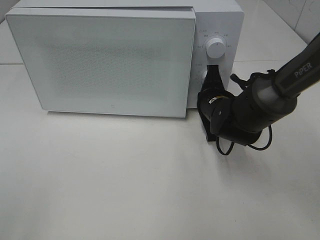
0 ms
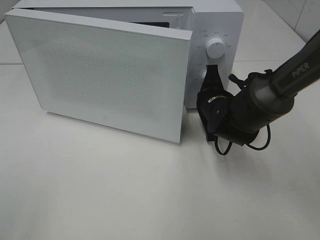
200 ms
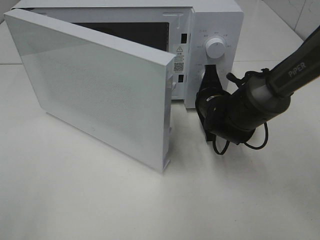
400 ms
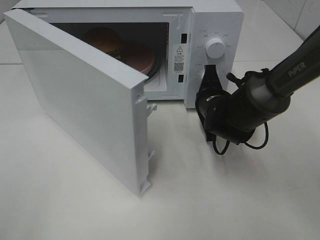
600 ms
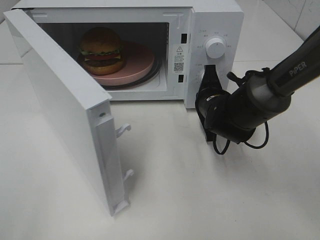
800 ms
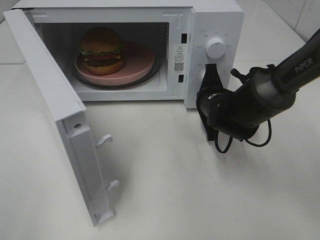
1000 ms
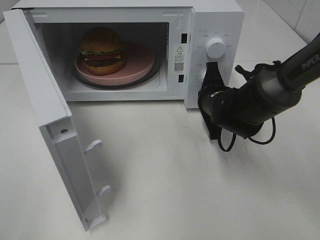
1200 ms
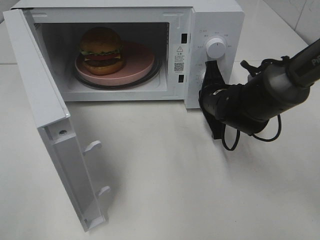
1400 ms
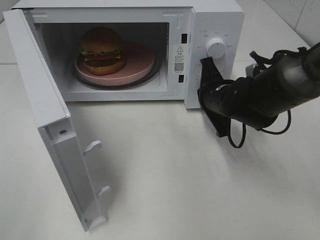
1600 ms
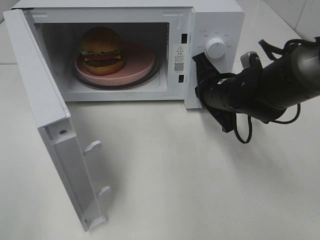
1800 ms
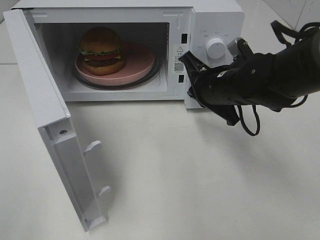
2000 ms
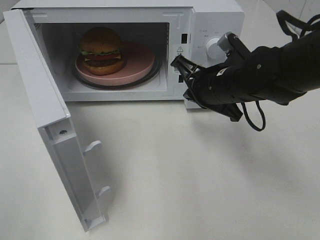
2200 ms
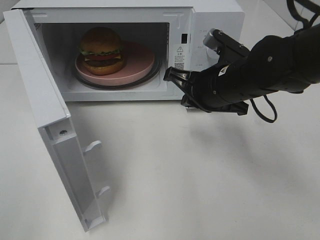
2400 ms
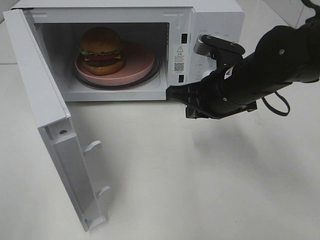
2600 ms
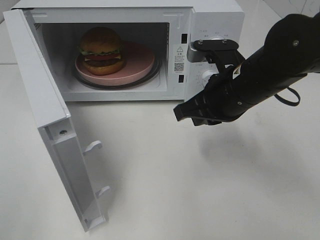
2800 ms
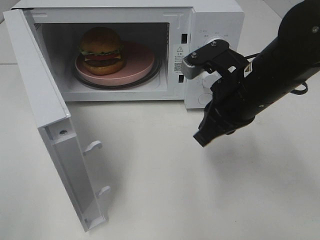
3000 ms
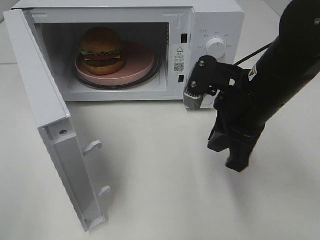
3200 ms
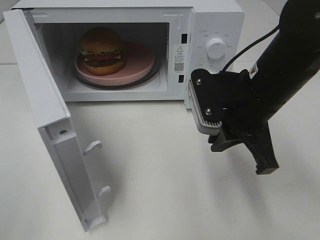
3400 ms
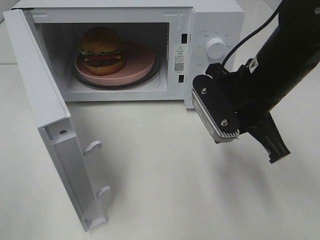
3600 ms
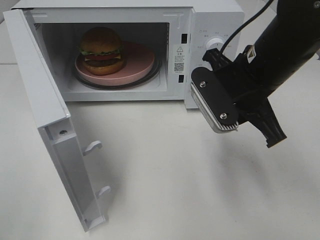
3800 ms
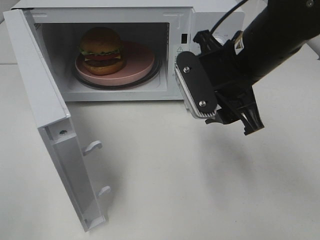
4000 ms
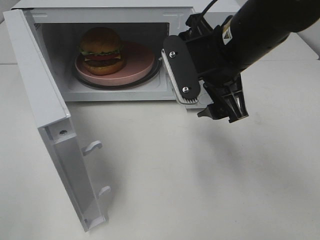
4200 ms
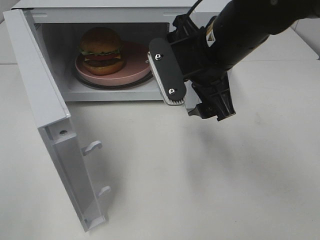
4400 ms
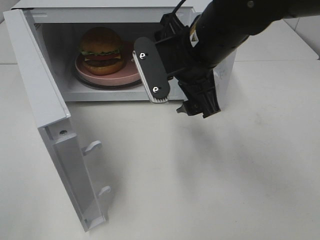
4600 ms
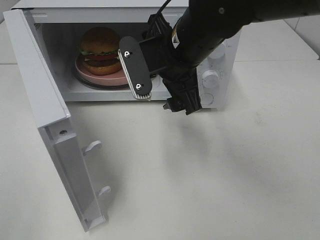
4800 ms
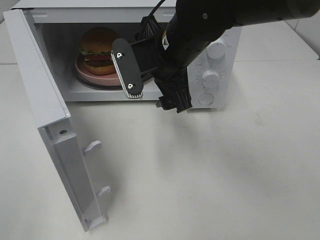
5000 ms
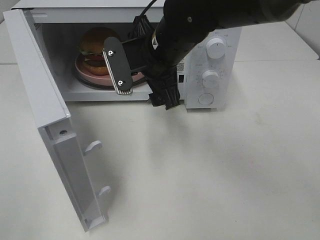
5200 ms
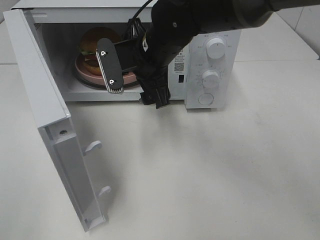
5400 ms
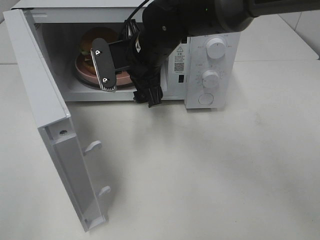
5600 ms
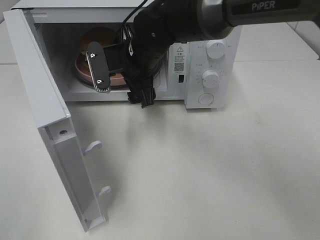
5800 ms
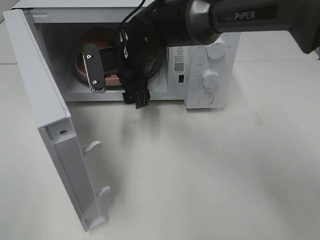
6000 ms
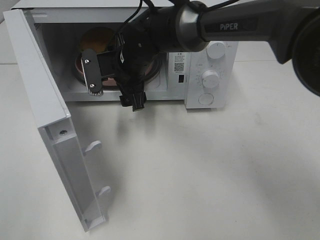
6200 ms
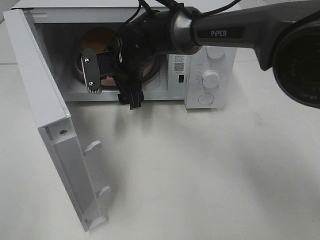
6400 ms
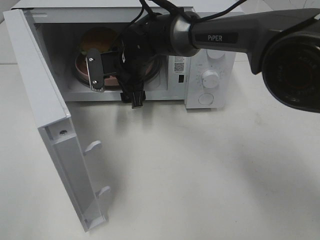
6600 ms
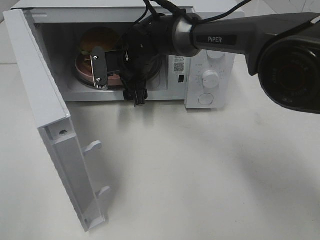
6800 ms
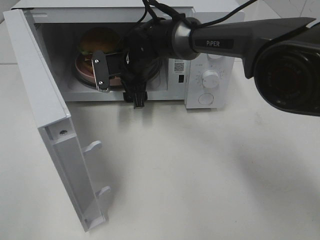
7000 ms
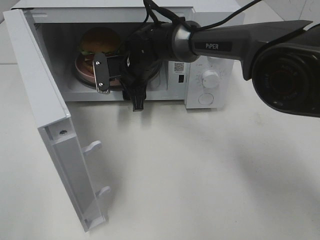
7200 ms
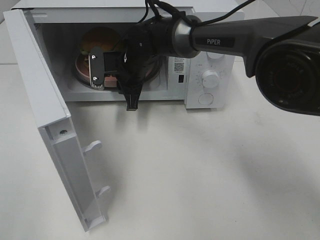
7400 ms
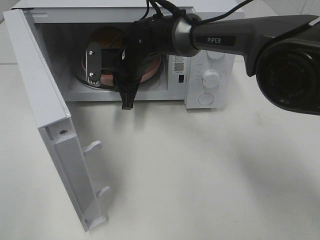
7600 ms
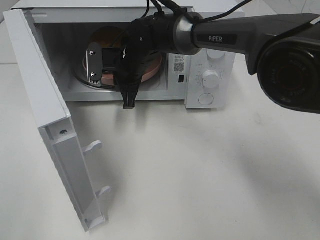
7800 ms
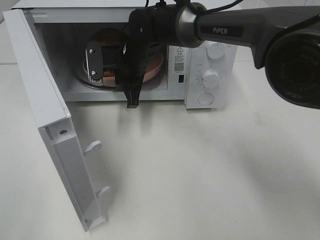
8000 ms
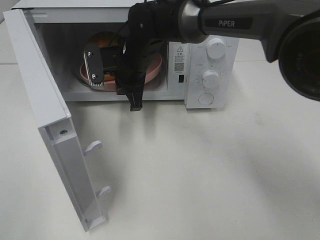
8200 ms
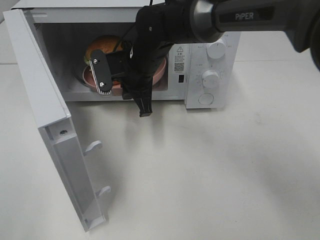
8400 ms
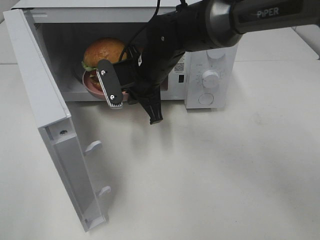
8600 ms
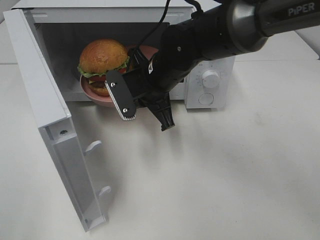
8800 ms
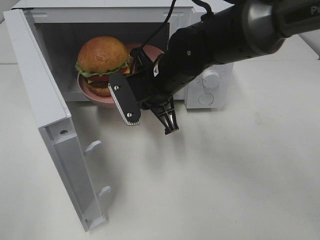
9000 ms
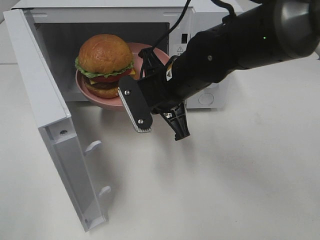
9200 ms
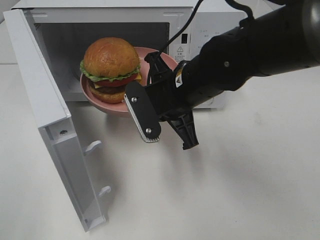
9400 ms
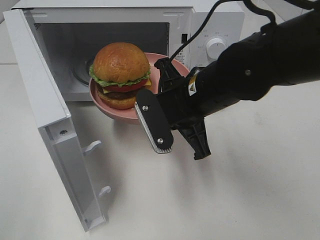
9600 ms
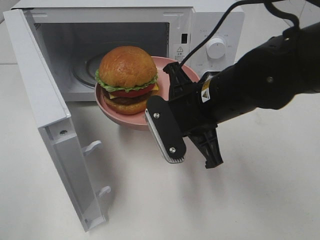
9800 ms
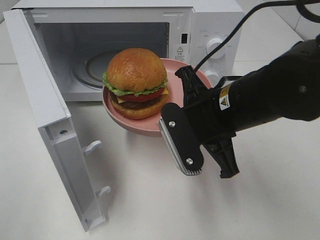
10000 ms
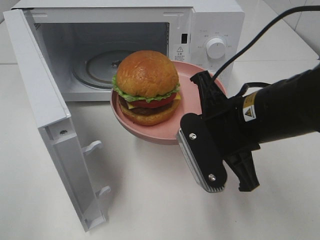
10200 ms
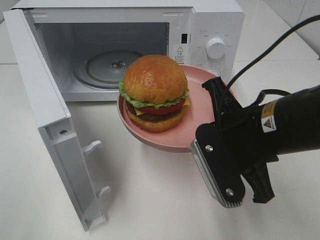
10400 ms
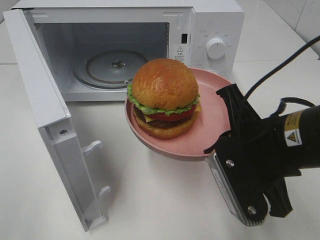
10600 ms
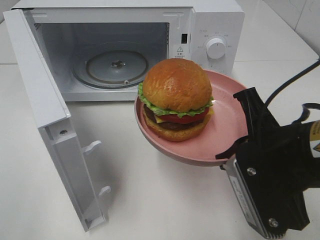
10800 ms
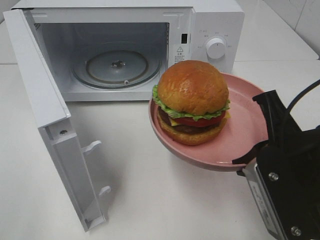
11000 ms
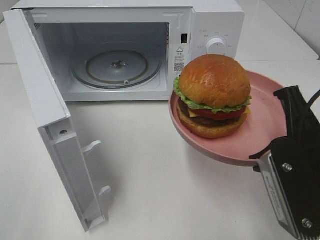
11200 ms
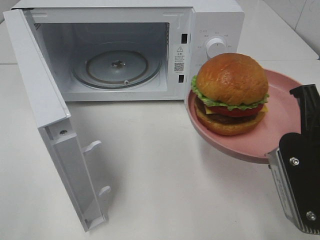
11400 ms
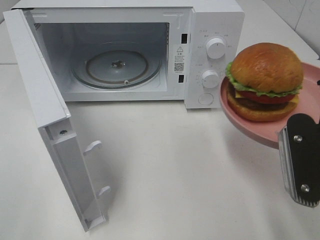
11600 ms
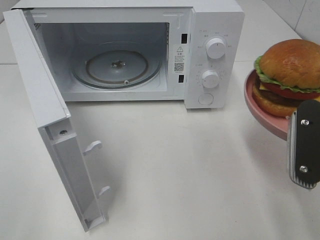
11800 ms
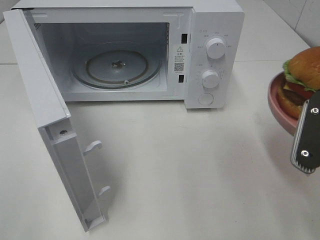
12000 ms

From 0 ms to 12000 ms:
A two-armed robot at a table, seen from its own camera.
Task of the whole recording: Heat the burger.
Step, from 1800 ms to 7600 ms: Right hand: grab the plate with the hamburger.
From 1600 ms to 3000 ms: The right gripper moves upward and backward, roughly 10 cm.
From 3000 ms to 4400 ms: The right gripper shifts approximately 5 cm to the left, and opens its fingers.
From 4400 ms to 6000 ms: The right gripper moves to the left, forward and downward, approximately 15 cm.
From 6000 ms to 7600 ms: The right gripper ends up some 5 cm from where it was, and closes up.
From 7600 ms to 9000 ms: The right gripper heads backward and to the right, covering some 10 cm.
From 9000 ms to 10400 ms: The right gripper shifts about 20 cm backward and to the right.
From 10400 ms to 12000 ms: The right gripper moves to the right, roughly 10 cm.

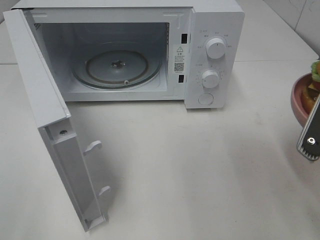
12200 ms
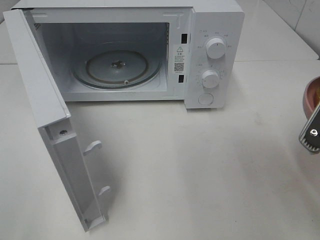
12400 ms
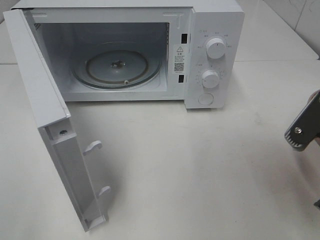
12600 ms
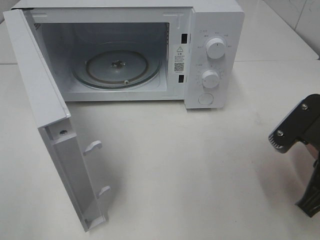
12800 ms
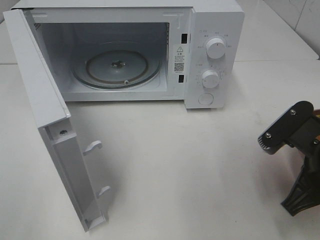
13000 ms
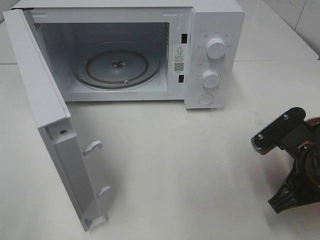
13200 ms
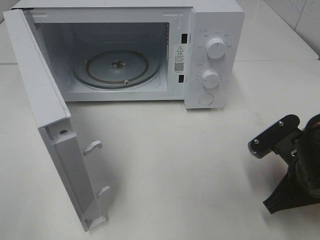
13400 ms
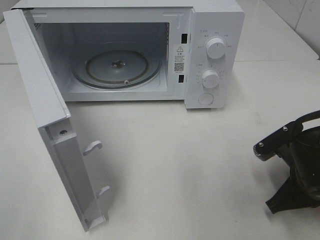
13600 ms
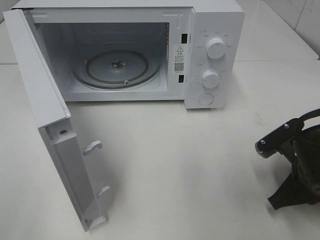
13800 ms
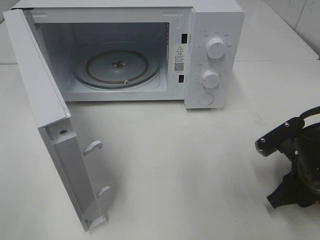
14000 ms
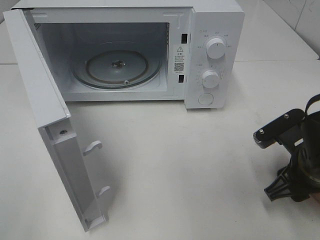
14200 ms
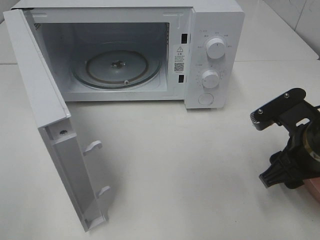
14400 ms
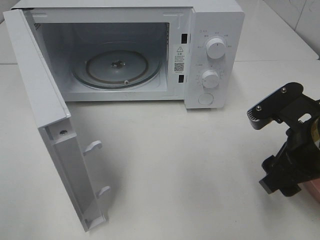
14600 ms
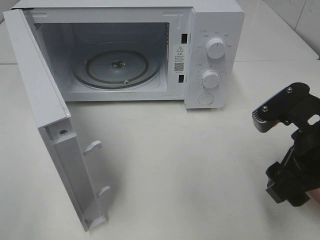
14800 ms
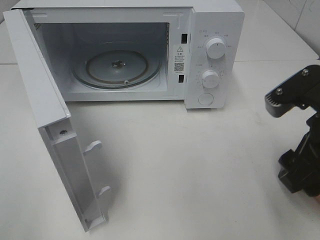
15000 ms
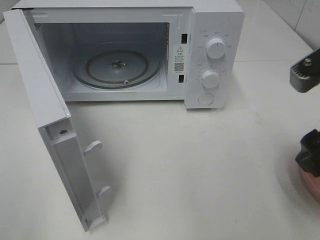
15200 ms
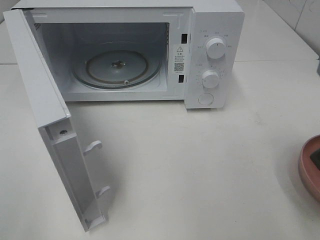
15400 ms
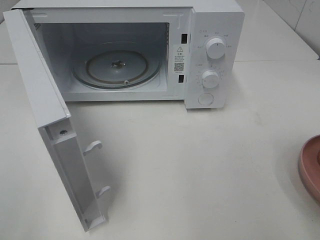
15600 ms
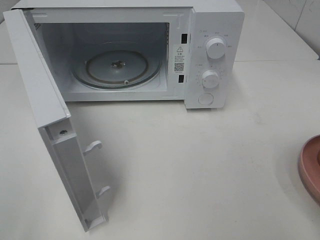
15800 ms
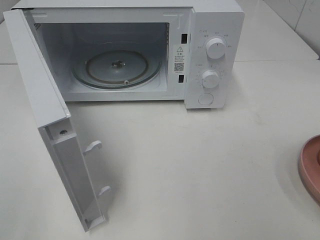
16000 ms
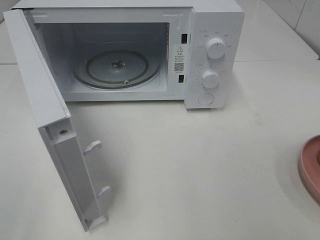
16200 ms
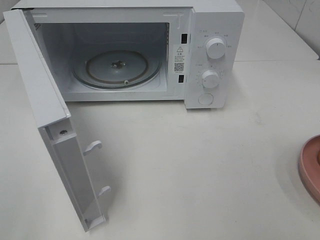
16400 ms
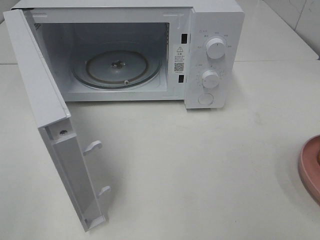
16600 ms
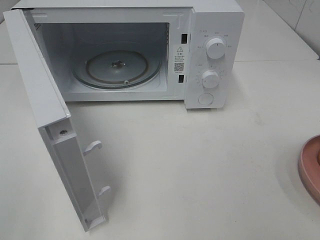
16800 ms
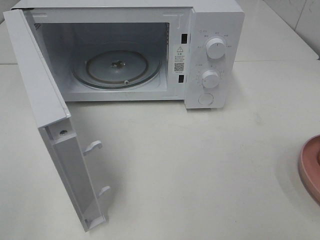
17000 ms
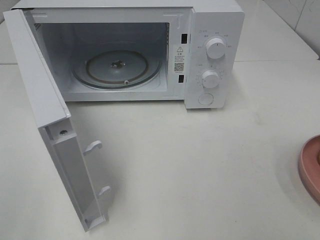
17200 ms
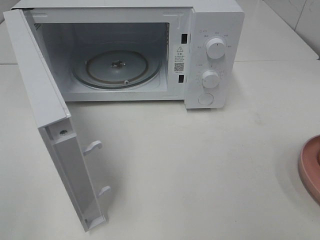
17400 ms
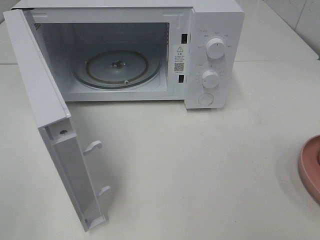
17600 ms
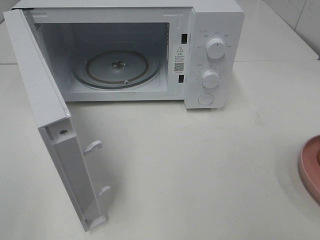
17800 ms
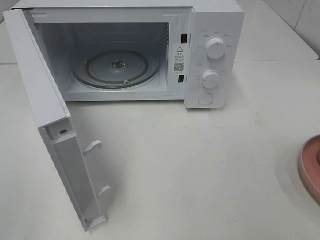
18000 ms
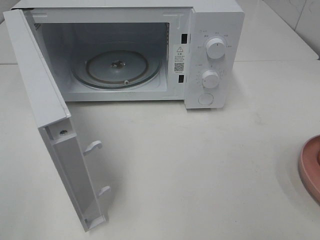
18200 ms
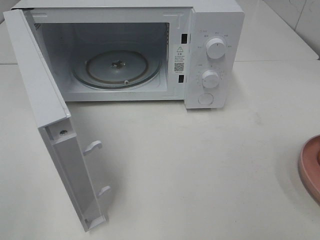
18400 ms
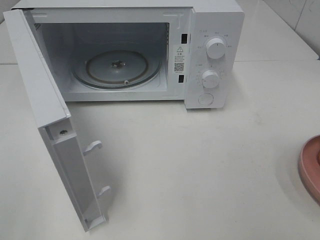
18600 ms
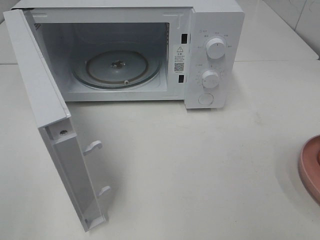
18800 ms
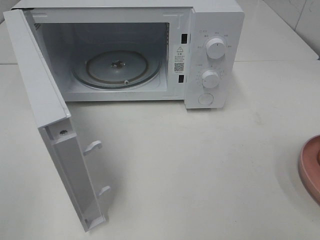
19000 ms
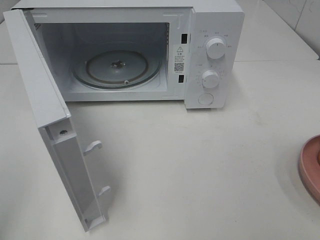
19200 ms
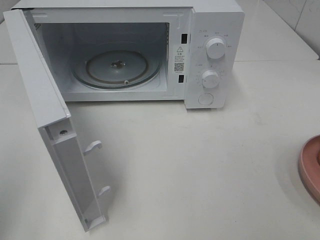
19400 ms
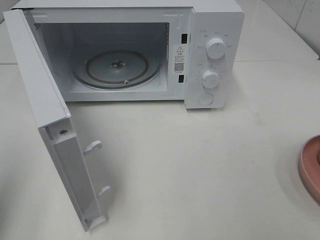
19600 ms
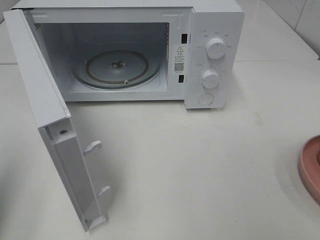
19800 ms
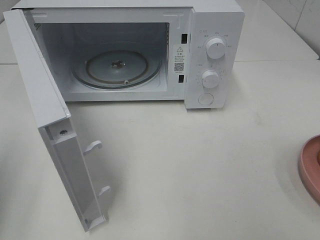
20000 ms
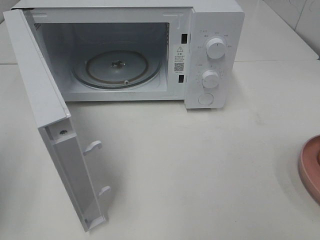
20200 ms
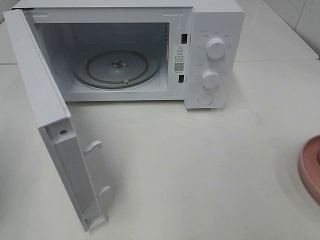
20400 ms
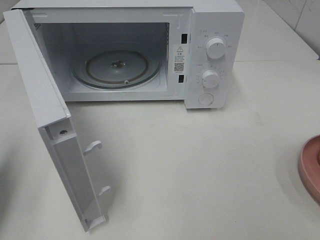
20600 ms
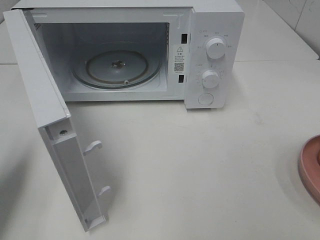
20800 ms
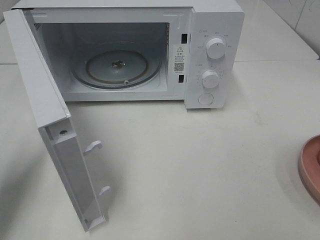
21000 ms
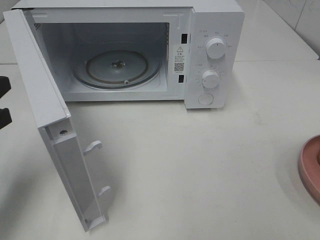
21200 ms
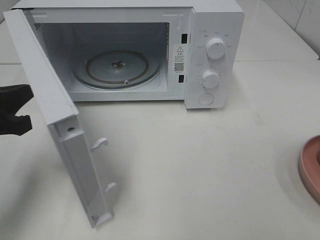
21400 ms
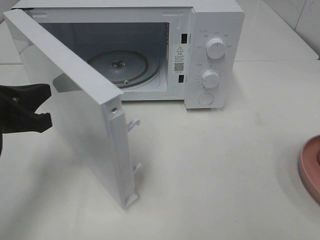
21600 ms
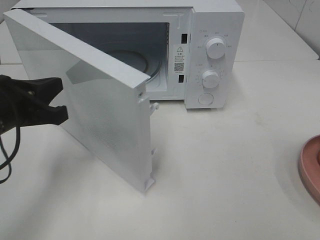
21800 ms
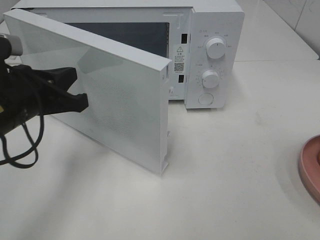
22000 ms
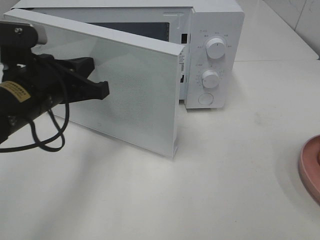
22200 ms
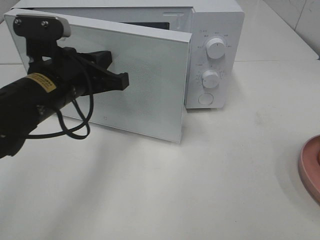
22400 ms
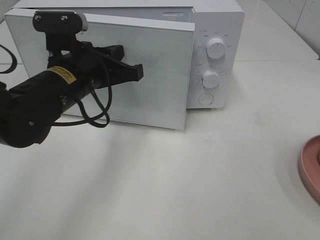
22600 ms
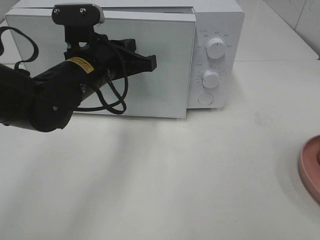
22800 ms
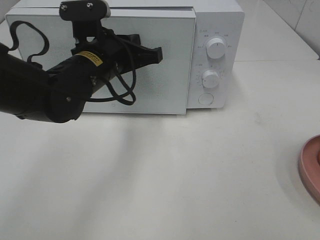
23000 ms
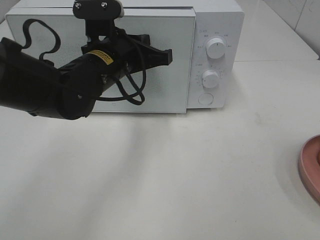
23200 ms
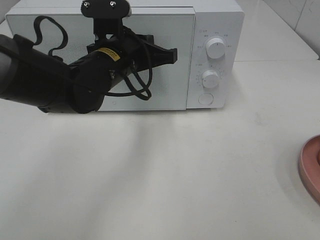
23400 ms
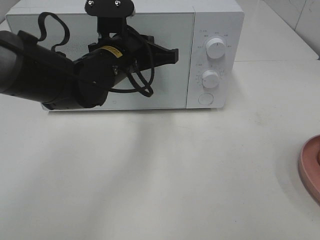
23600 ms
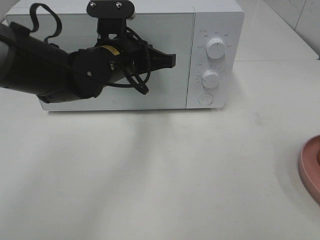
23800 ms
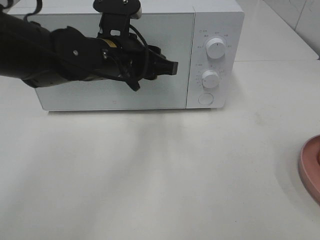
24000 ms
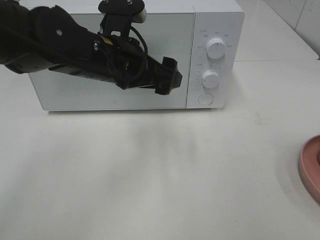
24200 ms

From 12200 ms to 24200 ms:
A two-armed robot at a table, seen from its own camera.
Task of the whole recording: Heat the burger.
Step, from 14000 ms to 23800 ms: Left hand: close the microwave door.
From 12200 ms to 13800 ms: The right gripper is displaced downward and forward by roughly 15 cm.
From 13800 ms to 15200 ms: The right gripper shifts roughly 15 cm upward, and opens its fingers.
From 15200 ms to 16600 ms: The right gripper shifts about 15 cm backward and to the right.
From 18200 ms to 19800 ms: The left gripper travels forward by approximately 10 cm, and closes.
From 19800 ms to 21200 ms: The left gripper travels forward and downward by roughly 10 cm.
From 21200 ms to 22600 ms: The left gripper heads to the right and forward, covering roughly 20 cm.
From 22600 ms to 24200 ms: The left gripper shifts by about 5 cm, and opens.
